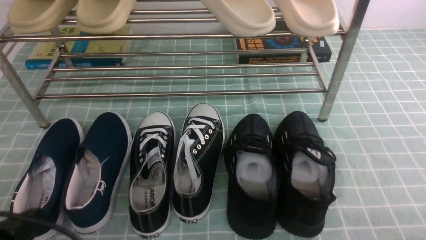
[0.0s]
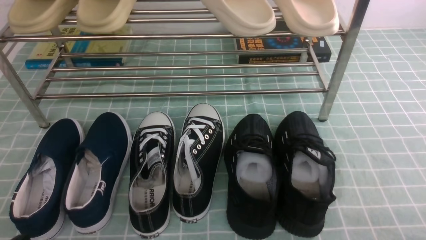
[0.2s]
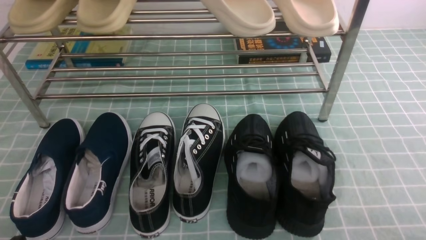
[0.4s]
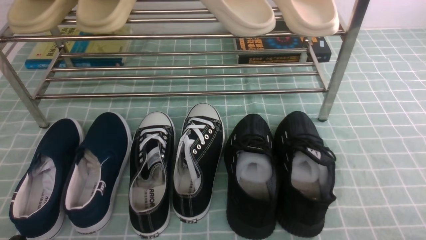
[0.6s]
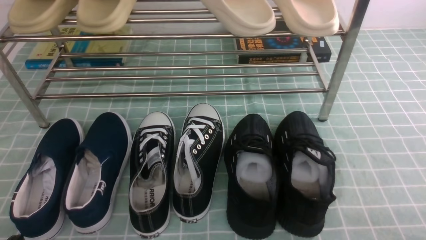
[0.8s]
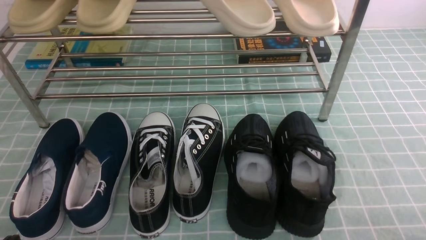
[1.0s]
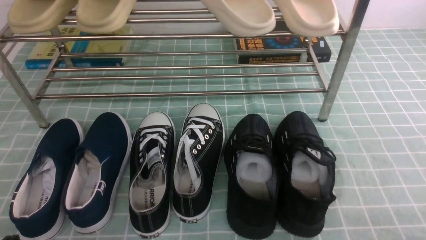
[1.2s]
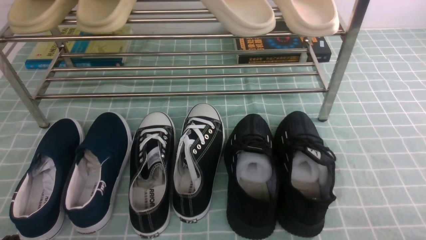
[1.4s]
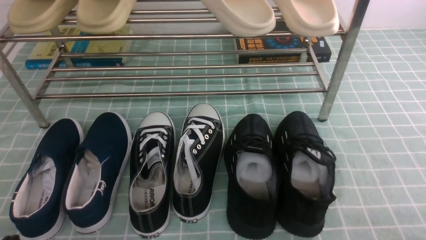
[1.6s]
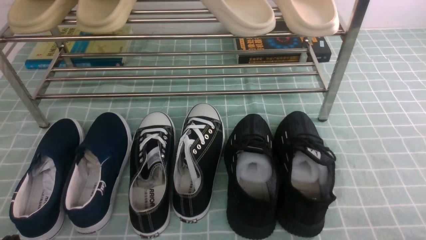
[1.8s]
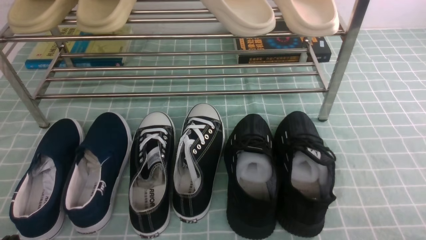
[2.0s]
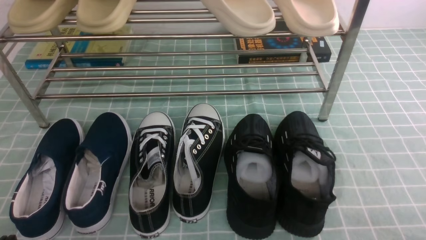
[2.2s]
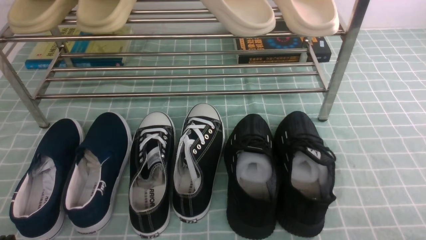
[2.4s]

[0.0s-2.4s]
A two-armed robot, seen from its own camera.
0.0s to 1.2s: The left gripper travels downward by approximately 5 cm.
1.2s to 2.4s: The two grippers keep their place.
